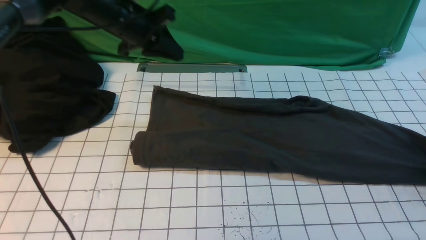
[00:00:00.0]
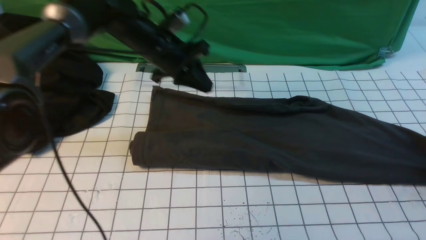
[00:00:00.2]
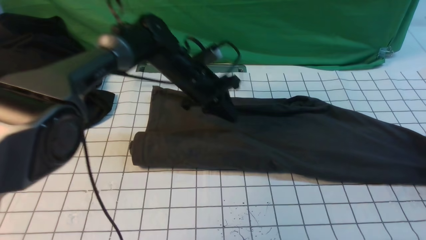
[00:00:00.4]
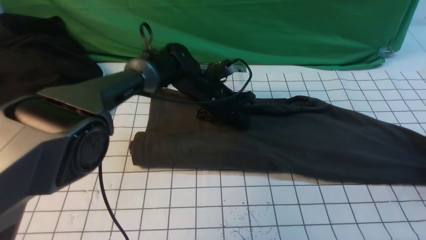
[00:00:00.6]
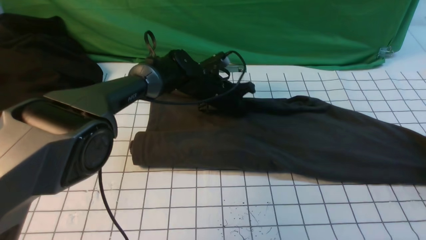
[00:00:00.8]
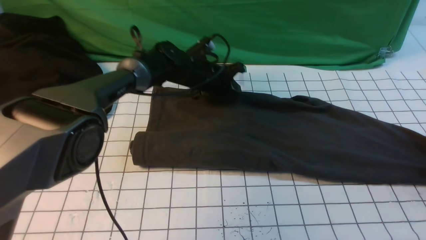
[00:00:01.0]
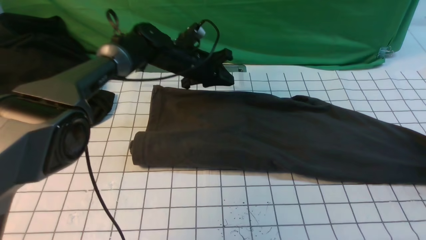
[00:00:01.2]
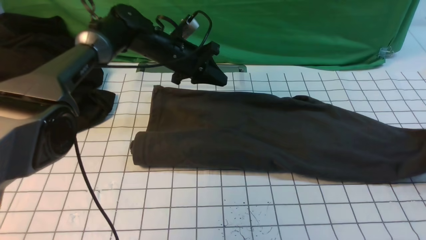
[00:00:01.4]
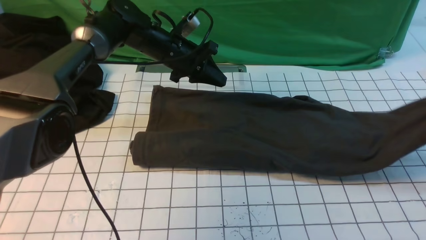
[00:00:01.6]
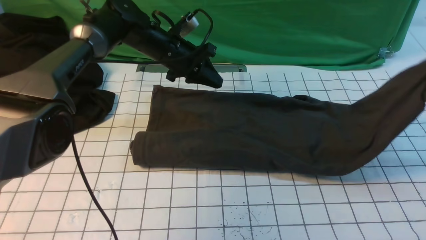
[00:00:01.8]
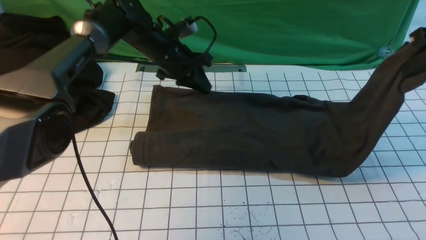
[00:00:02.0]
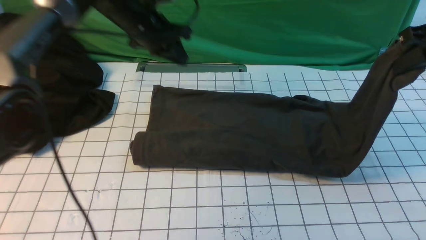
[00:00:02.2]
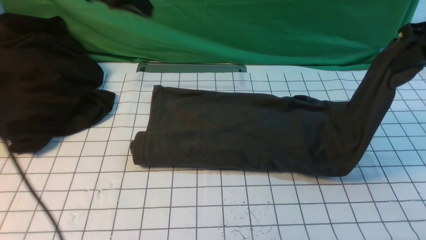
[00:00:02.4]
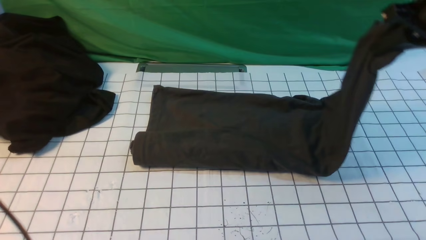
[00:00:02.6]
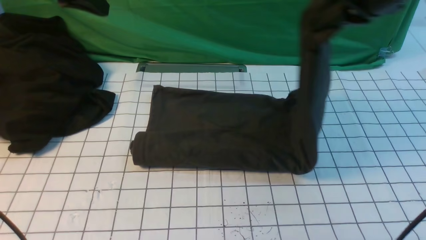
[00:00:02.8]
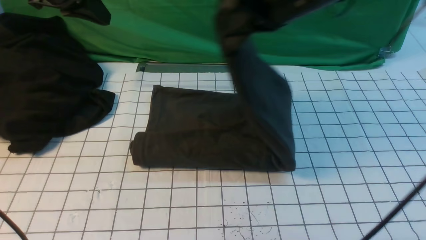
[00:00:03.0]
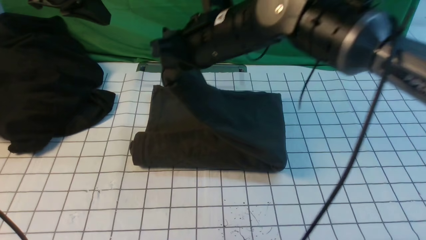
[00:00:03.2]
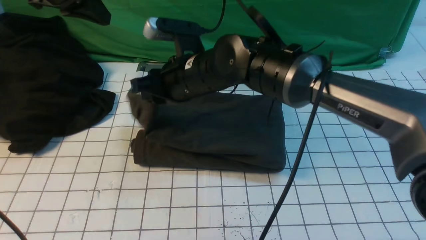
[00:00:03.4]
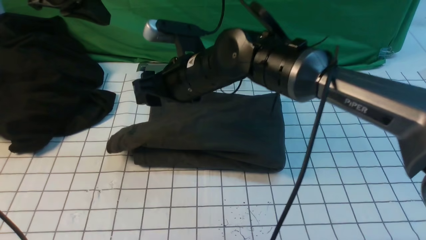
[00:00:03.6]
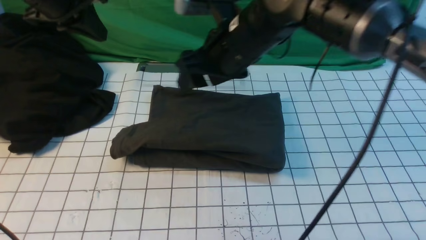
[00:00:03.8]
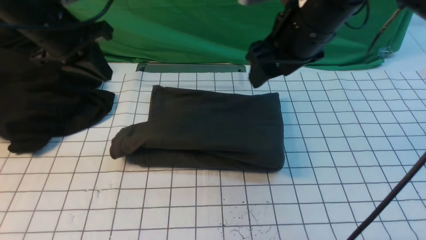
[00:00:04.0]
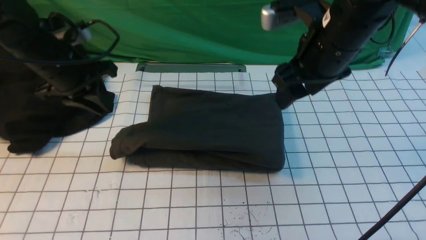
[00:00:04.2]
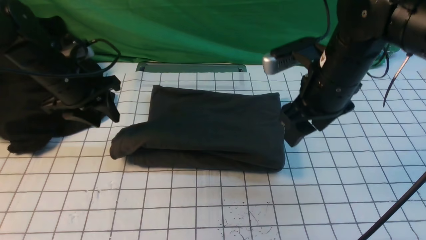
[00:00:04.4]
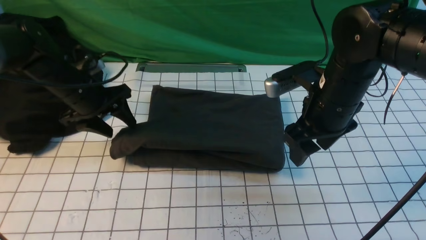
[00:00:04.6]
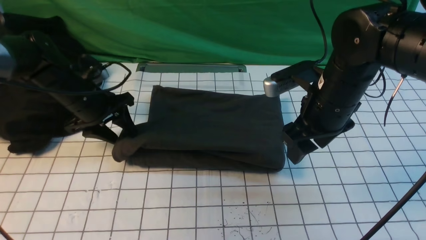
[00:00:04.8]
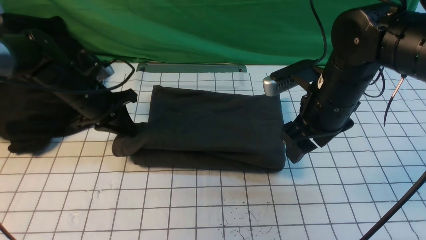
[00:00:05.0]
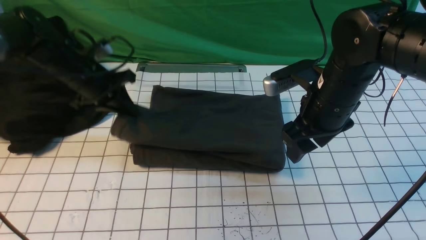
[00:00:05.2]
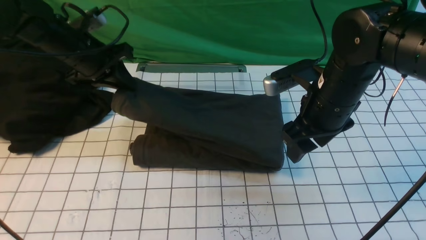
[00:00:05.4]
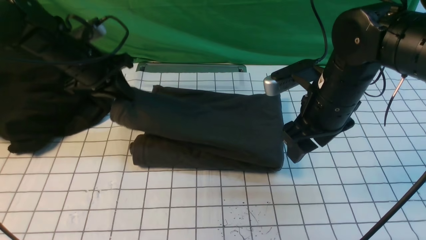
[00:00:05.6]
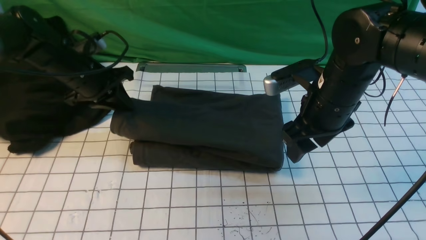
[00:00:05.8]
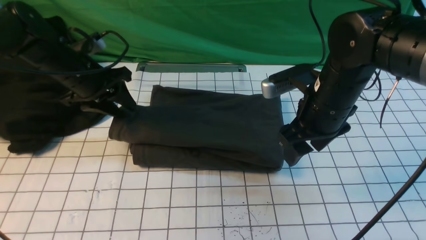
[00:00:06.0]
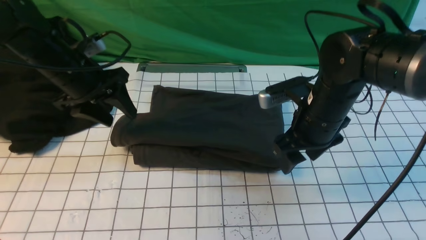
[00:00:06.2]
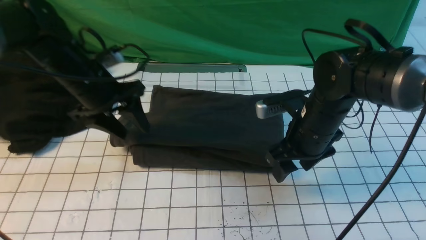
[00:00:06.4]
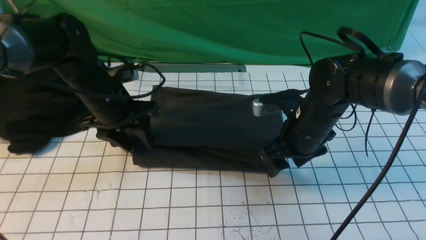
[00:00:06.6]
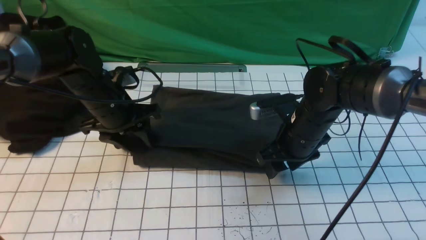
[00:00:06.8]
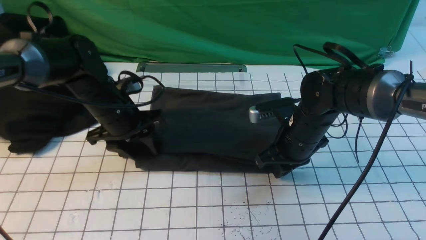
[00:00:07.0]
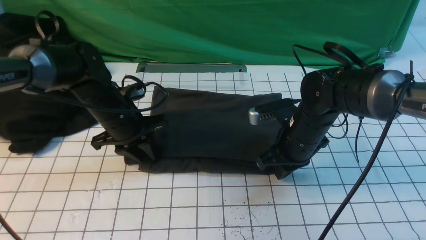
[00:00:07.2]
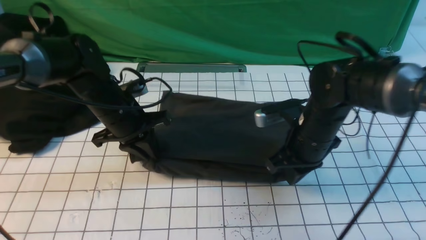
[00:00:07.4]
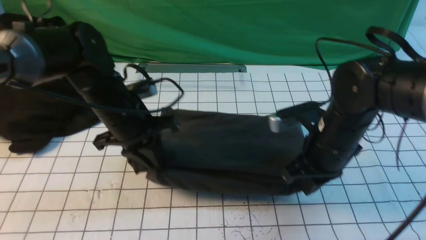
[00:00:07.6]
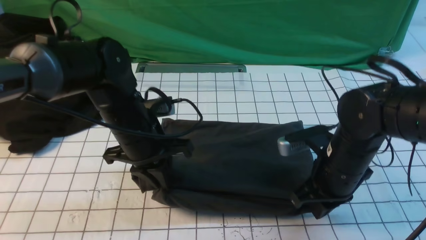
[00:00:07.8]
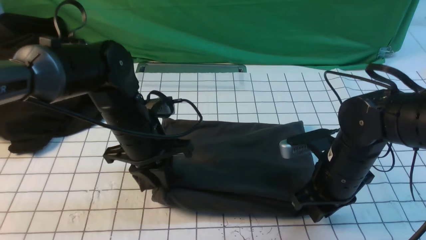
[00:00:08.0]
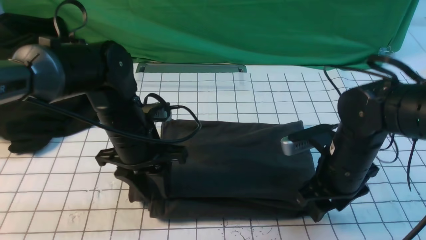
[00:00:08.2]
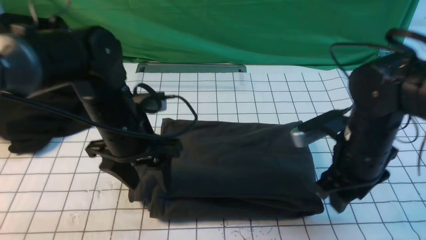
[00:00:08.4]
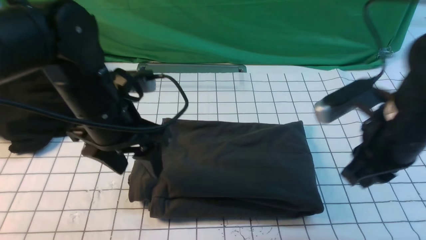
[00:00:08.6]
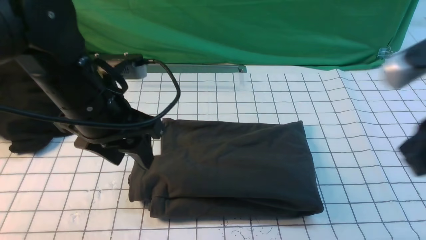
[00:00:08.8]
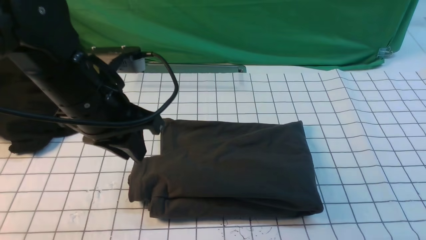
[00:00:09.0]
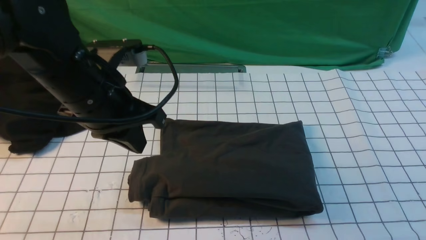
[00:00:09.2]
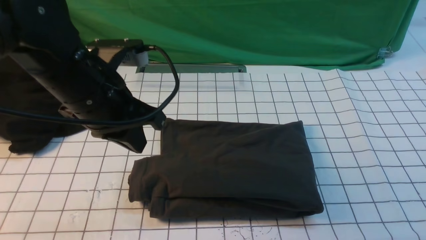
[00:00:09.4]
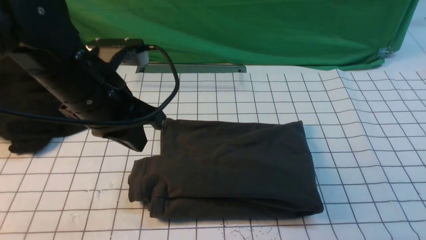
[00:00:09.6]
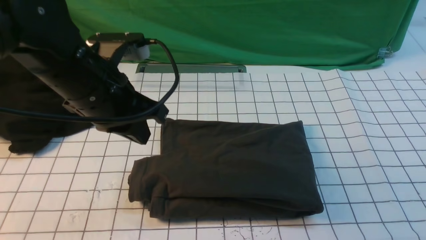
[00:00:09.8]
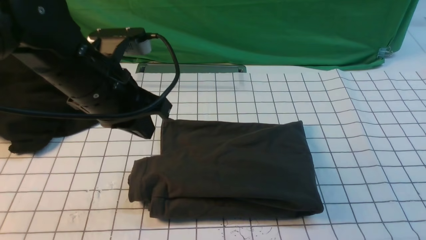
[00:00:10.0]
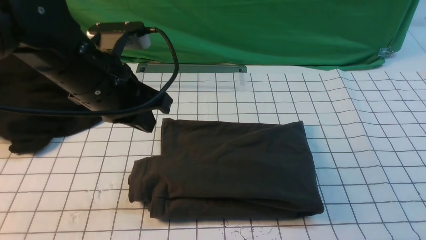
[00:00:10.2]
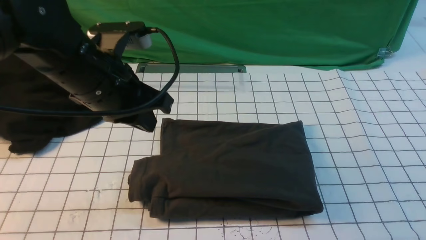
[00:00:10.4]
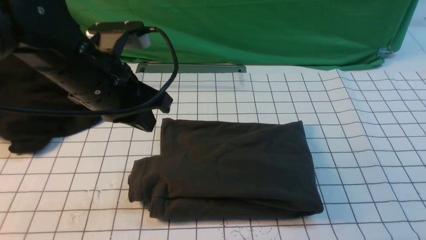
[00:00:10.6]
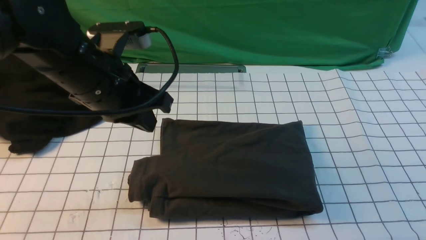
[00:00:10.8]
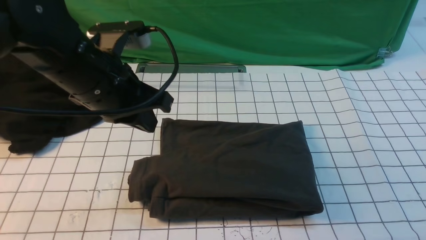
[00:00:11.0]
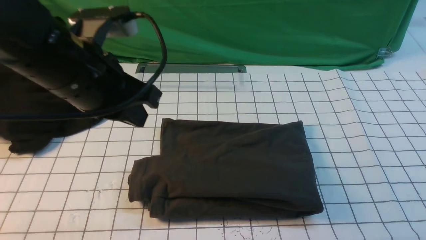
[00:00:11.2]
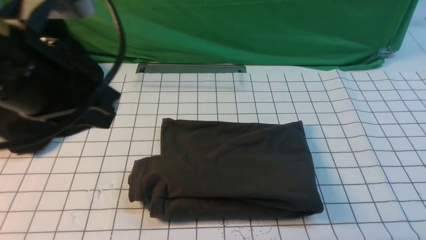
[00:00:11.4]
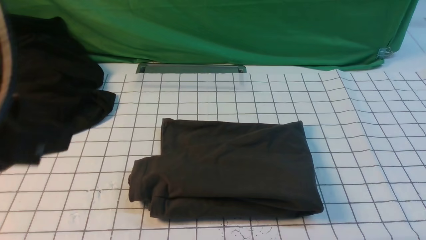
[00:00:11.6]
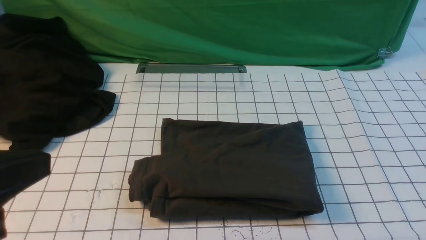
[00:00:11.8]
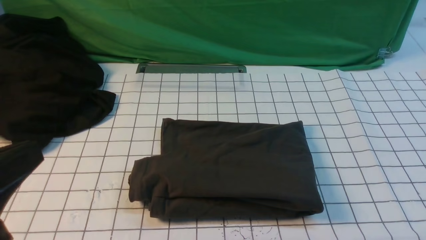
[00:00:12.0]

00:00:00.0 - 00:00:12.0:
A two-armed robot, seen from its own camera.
Step, 00:00:01.2 - 00:00:03.4: use the right arm to drag the right edge of the fabric to the left and folds it over the left edge.
00:00:00.0 - 00:00:01.6: The left gripper heads downward, covering some 5 cm. The right gripper shifts roughly 15 cm upward.
00:00:01.6 - 00:00:03.0: The left gripper shifts about 25 cm upward, to the left and backward, while the right gripper travels to the left by about 35 cm.
00:00:03.0 - 00:00:04.4: The left gripper shifts approximately 15 cm downward, and opens up, while the right gripper shifts some 10 cm downward and to the right, and opens.
00:00:04.4 - 00:00:06.0: The left gripper closes, then reopens.
00:00:06.0 - 00:00:07.6: The right gripper is displaced downward by roughly 5 cm, and closes up; the left gripper goes approximately 10 cm to the right and backward, and closes.
00:00:07.6 - 00:00:09.0: The left gripper goes roughly 15 cm upward and backward, and opens, then closes again. The right gripper goes some 30 cm backward, upward and to the right, and opens, then closes again.
00:00:09.0 - 00:00:10.4: The right gripper goes roughly 10 cm downward. The left gripper closes its fingers.
00:00:10.4 - 00:00:12.0: The left gripper shifts approximately 20 cm backward. Meanwhile the right gripper travels downward by about 5 cm.

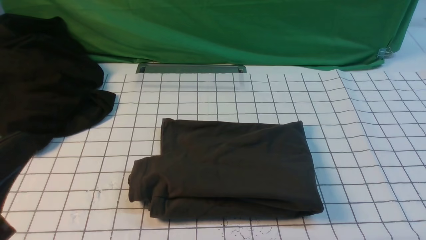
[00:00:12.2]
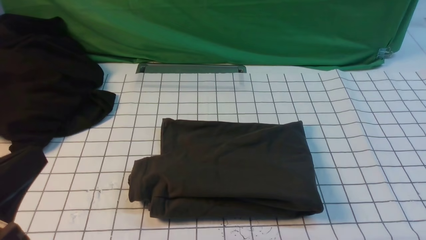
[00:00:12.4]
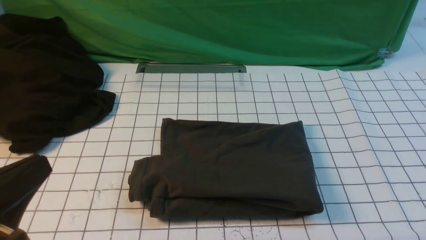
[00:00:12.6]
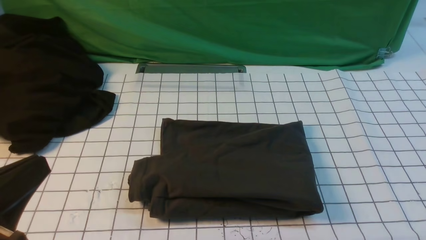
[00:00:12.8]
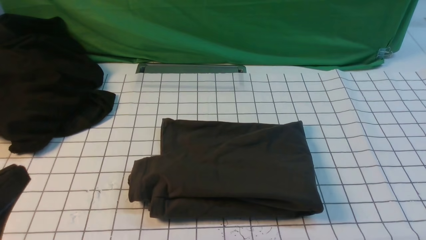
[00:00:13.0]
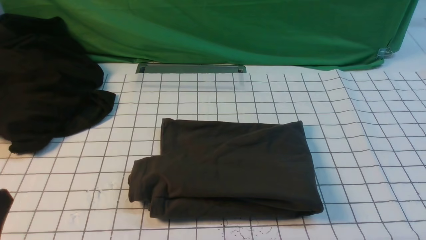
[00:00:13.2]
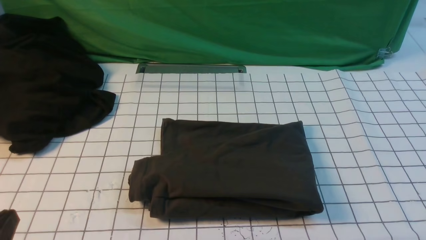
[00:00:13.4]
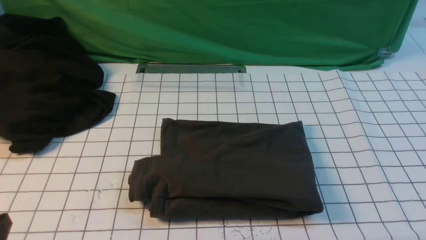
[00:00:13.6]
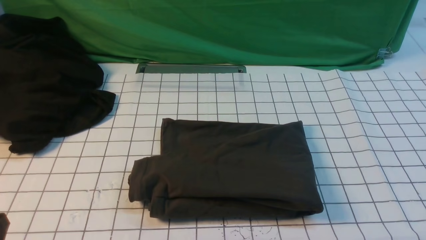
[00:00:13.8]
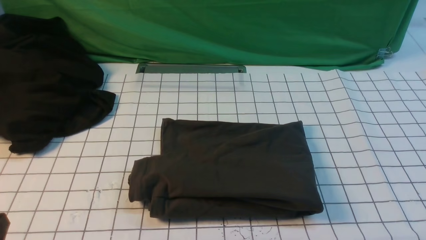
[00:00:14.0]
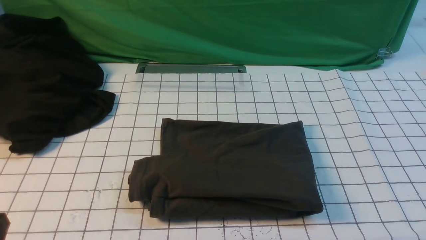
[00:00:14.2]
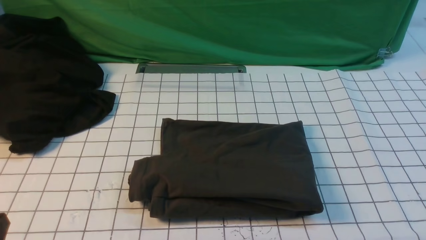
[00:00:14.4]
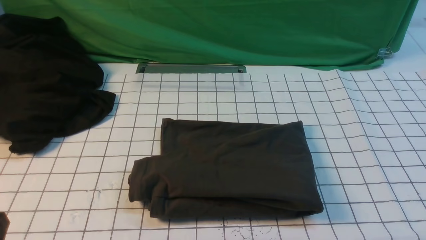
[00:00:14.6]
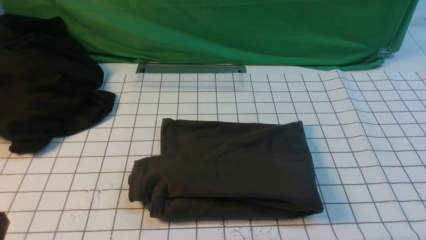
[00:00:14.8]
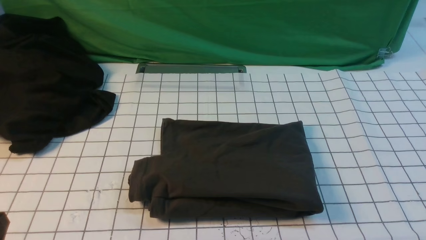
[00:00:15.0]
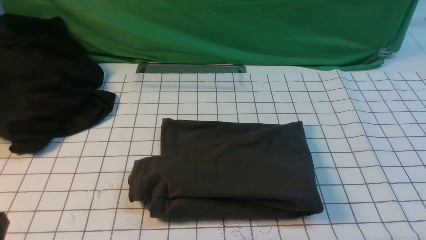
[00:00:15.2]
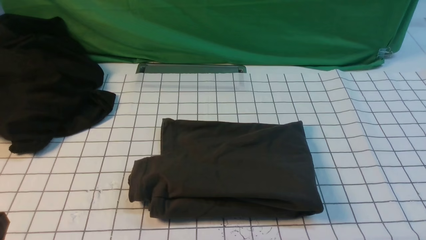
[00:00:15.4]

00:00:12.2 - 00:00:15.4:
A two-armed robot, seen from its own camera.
00:00:12.2 - 00:00:13.8: The left gripper heads downward, covering roughly 10 cm.
00:00:13.8 - 00:00:15.4: Neither gripper changes place.
